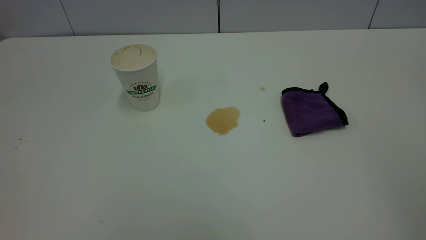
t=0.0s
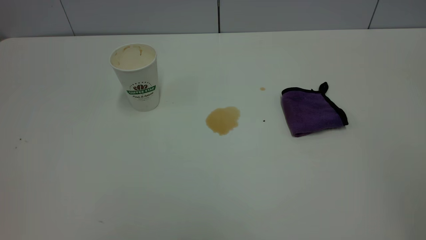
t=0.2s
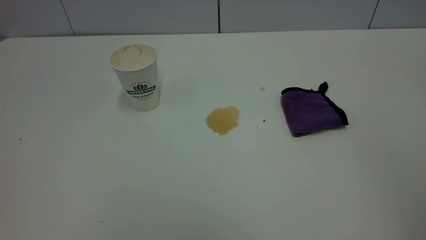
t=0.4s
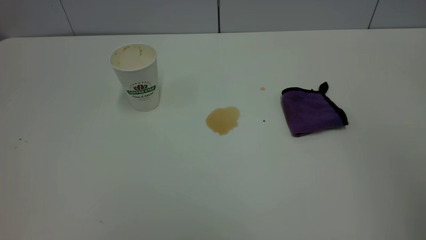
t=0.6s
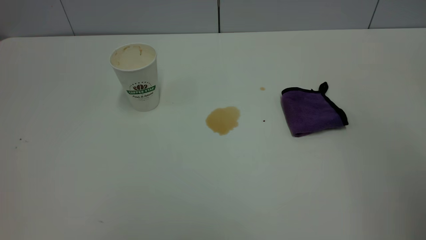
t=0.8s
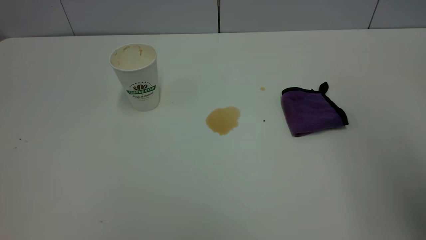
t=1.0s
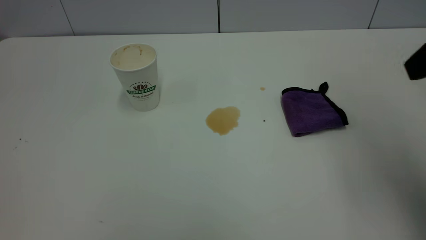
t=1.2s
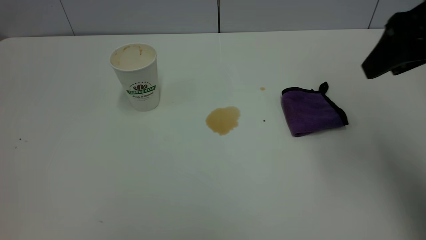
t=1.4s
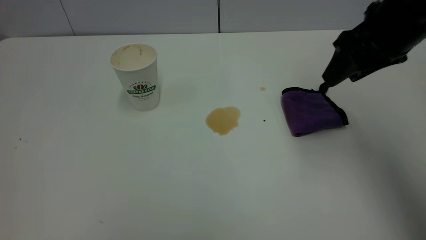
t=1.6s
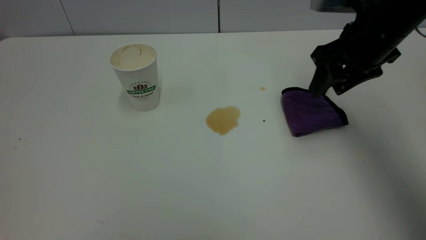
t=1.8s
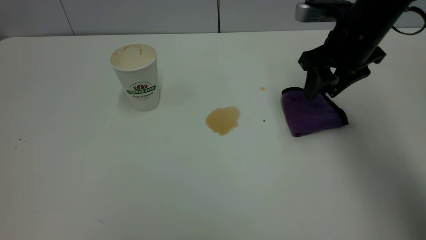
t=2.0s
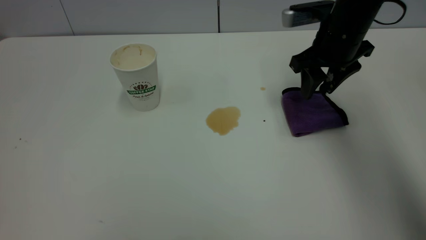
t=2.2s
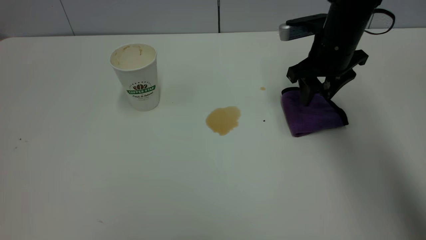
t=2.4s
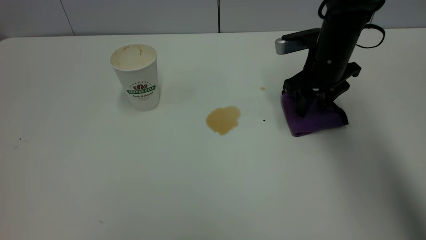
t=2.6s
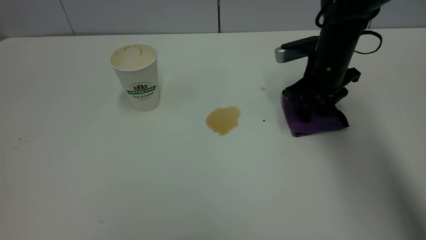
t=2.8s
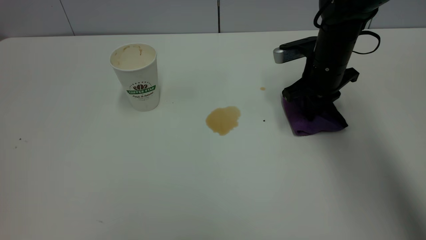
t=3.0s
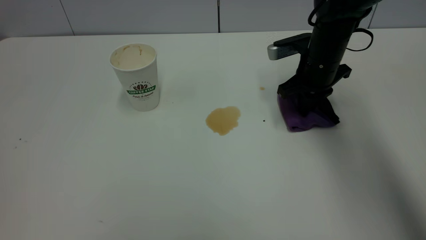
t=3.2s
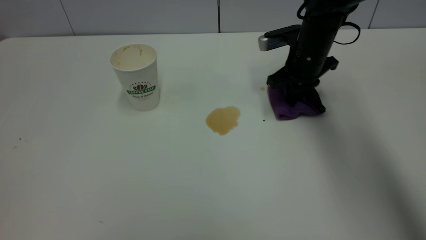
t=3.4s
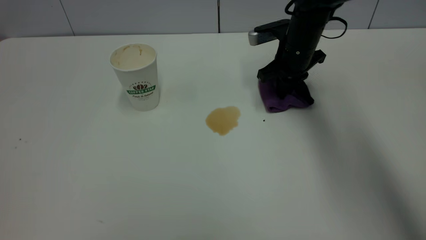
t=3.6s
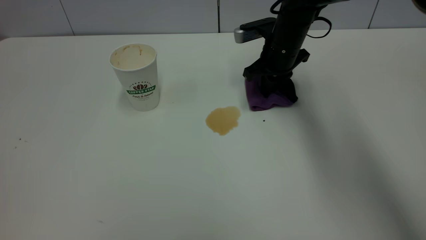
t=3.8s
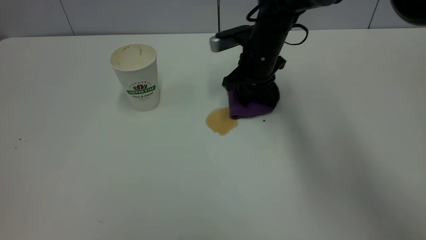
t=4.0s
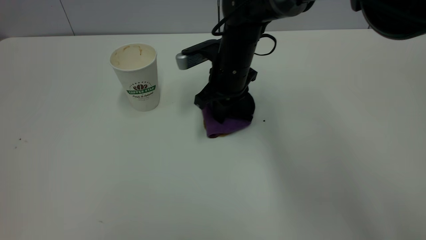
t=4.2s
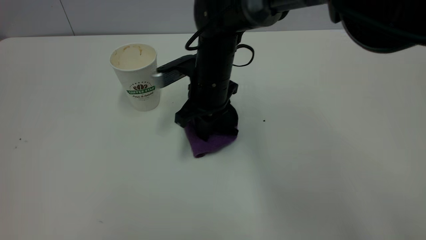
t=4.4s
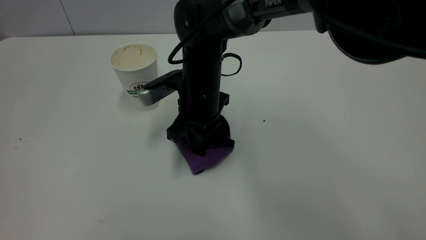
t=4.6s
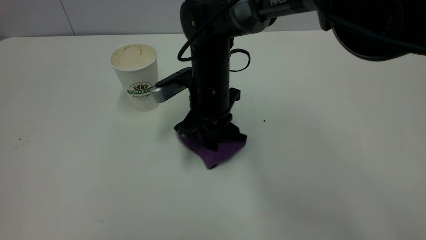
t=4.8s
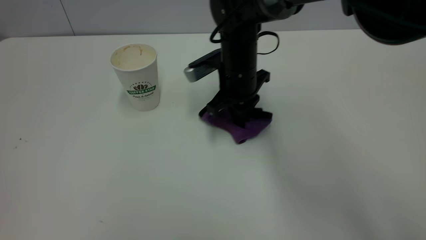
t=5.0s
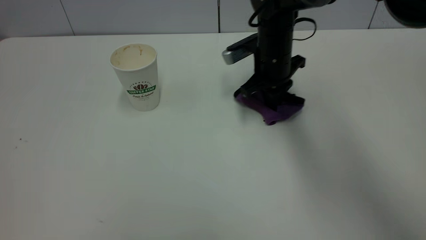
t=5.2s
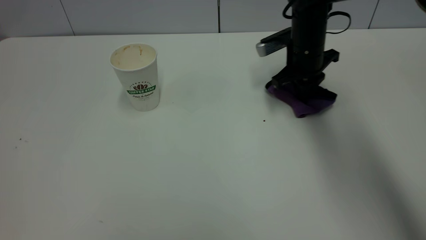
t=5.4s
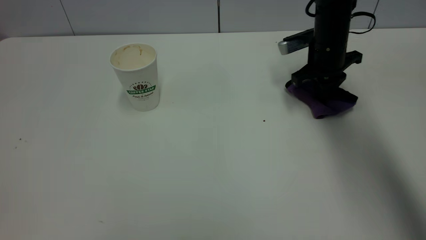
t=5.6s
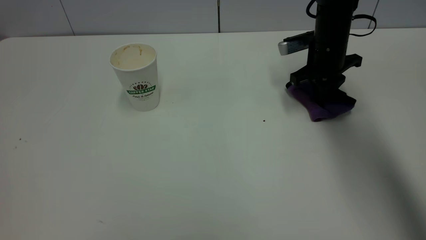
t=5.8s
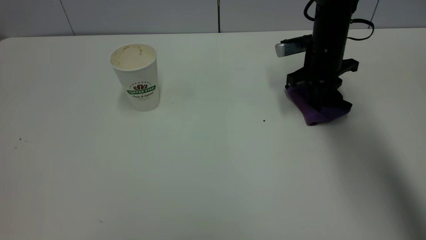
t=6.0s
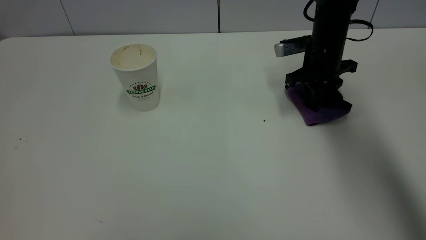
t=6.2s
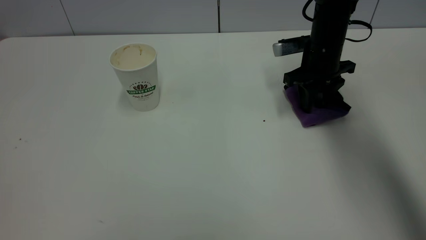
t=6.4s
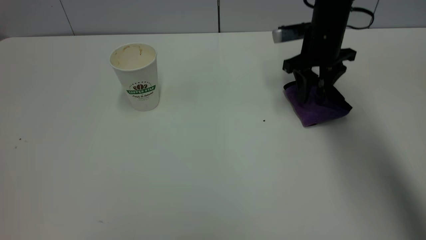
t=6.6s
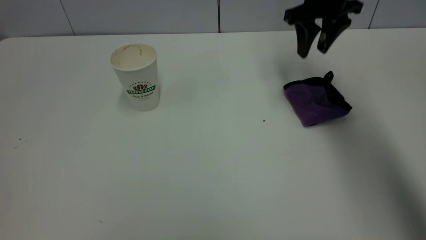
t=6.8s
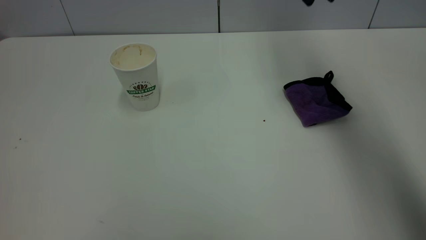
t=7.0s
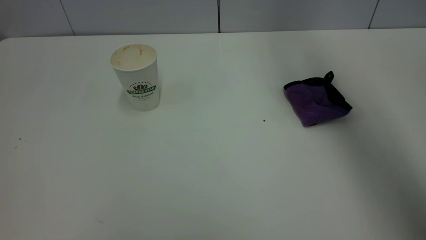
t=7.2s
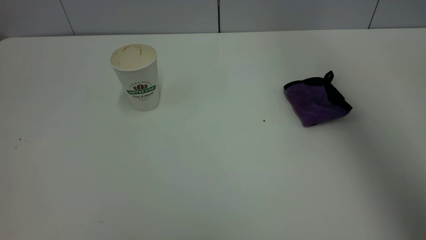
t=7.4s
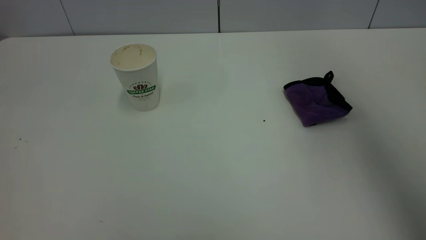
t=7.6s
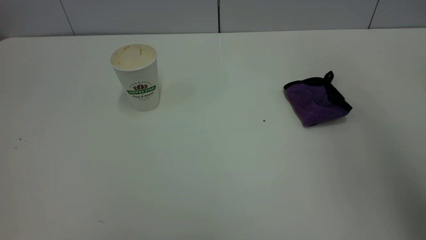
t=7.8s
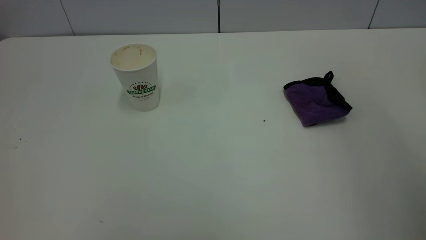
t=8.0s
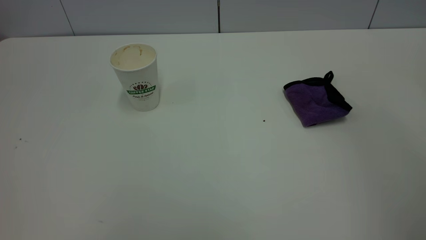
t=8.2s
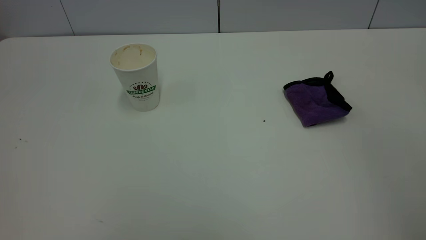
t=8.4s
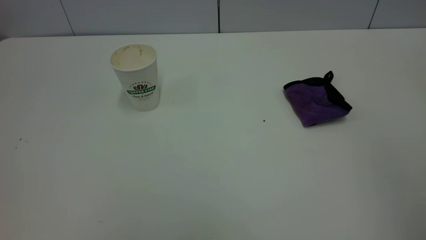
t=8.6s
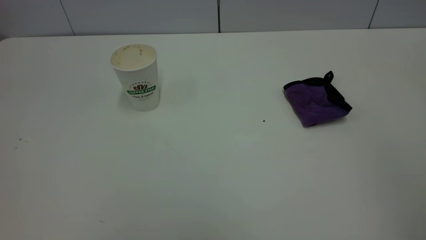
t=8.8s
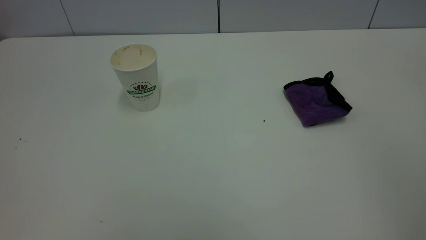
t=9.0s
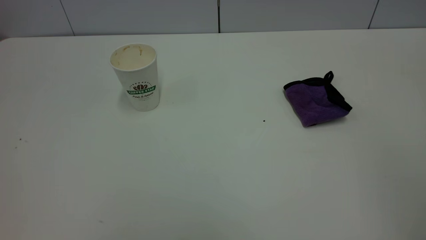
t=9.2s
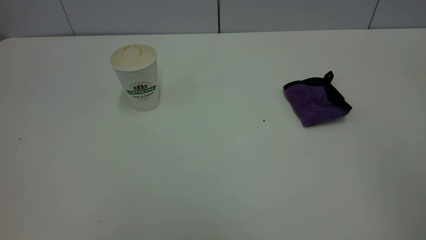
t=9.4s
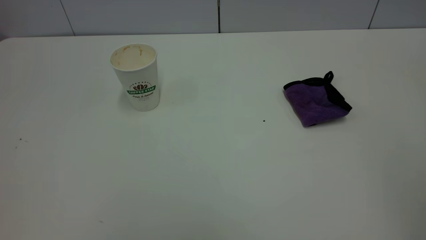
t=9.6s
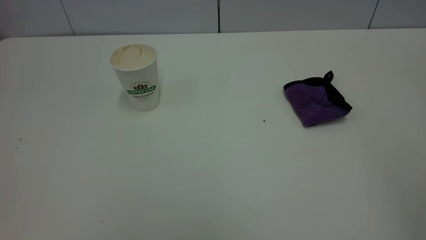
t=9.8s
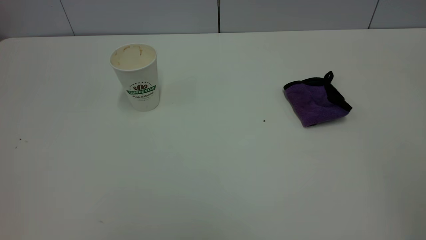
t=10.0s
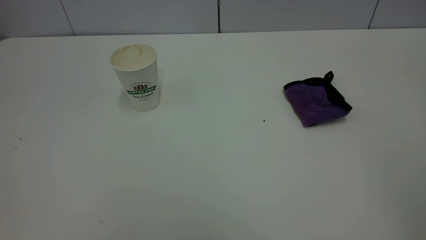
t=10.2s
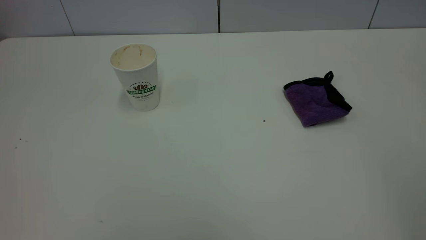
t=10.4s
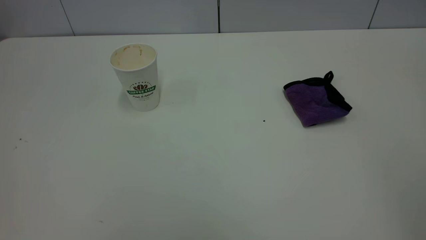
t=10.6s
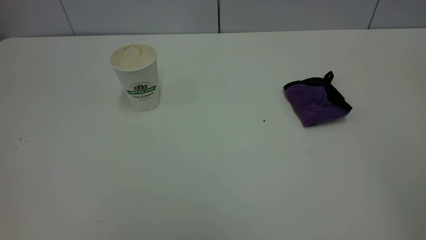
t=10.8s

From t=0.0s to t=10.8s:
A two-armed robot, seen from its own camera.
Task of the whole recording: the left gripper pick up the fallen cup and place it upright, the right gripper grasp the purple rag and wipe the tea stain on the table, the right gripper put the purple rag back in its original position.
Step, from t=0.0s to t=6.8s: Wipe the stains off the table with a rag.
From t=0.0s to t=1.6s: The right gripper heads forward and downward, covering about 40 cm, and opens up.
From t=1.6s to t=3.0s: The right gripper is displaced downward and forward by some 15 cm, and closes.
From t=3.0s to t=4.6s: The right gripper shifts approximately 20 cm to the left.
From t=4.6s to t=6.2s: The right gripper moves to the right and forward, some 25 cm, and opens its fingers.
From t=6.2s to t=7.8s: The right gripper heads upward and backward, covering some 40 cm, and opens up.
